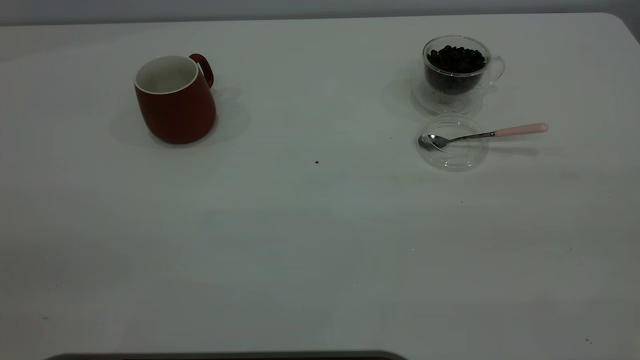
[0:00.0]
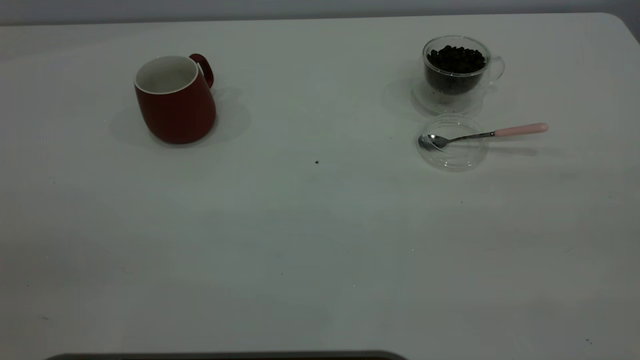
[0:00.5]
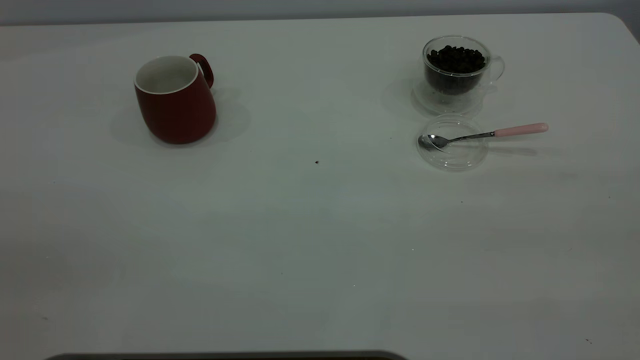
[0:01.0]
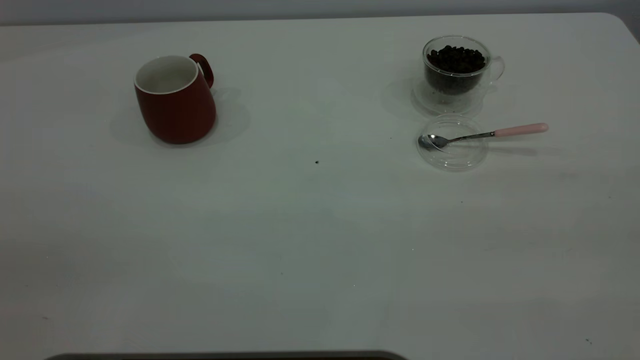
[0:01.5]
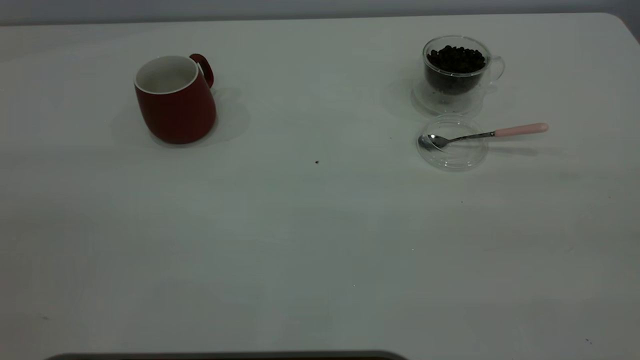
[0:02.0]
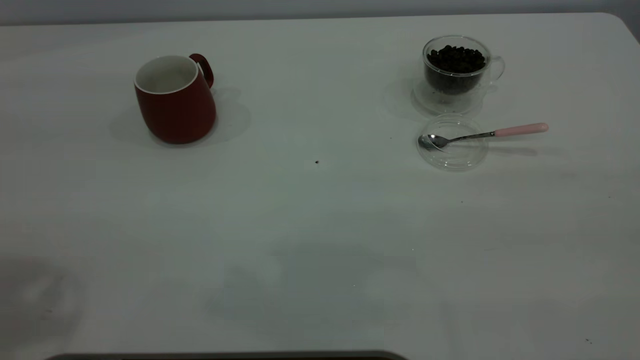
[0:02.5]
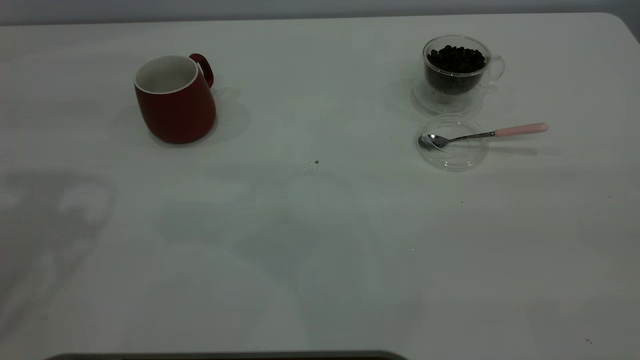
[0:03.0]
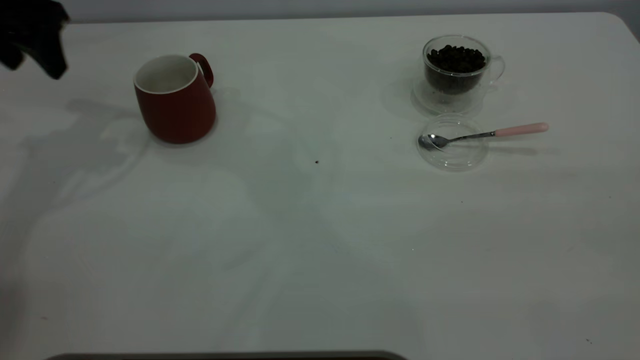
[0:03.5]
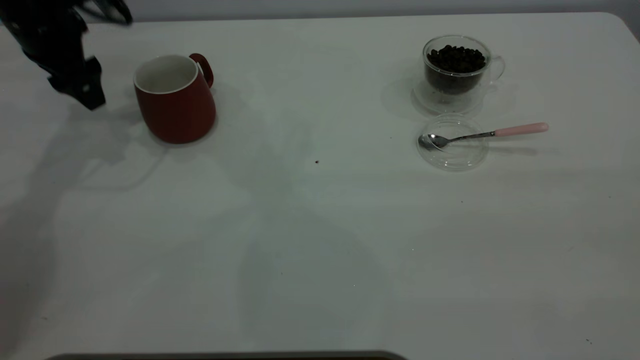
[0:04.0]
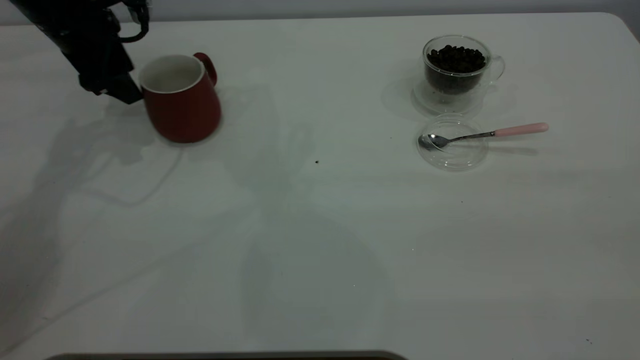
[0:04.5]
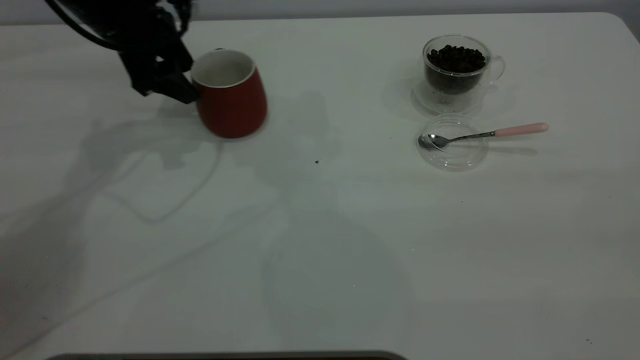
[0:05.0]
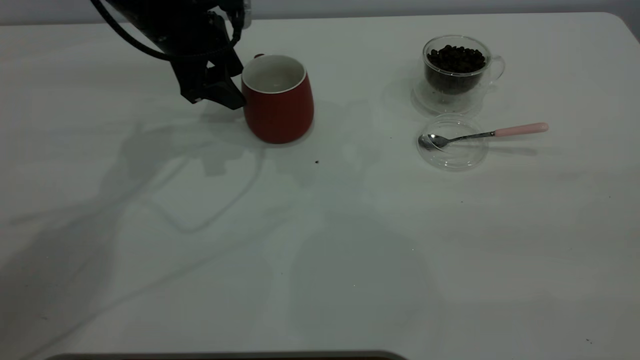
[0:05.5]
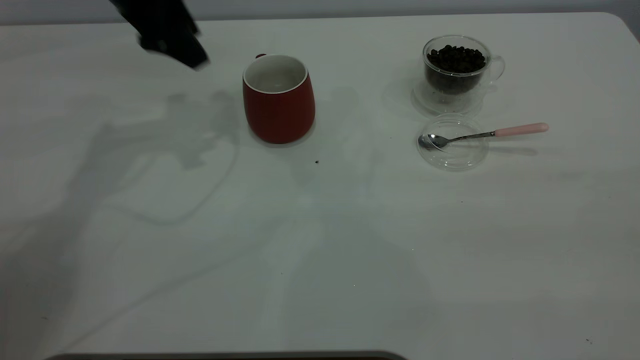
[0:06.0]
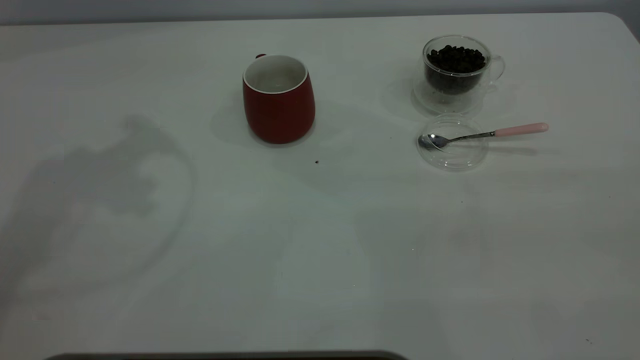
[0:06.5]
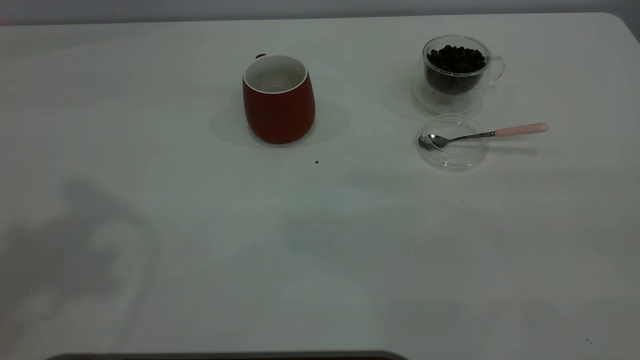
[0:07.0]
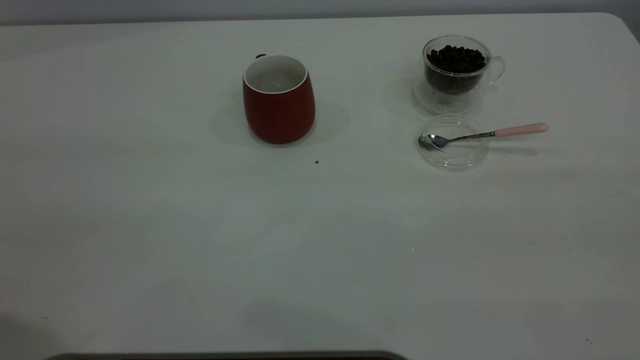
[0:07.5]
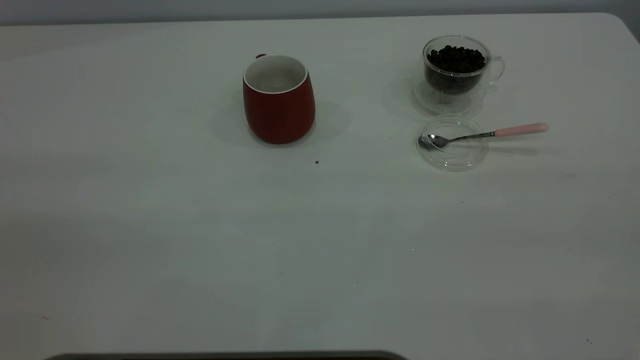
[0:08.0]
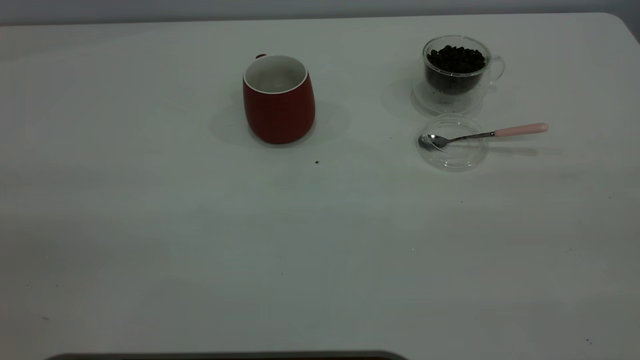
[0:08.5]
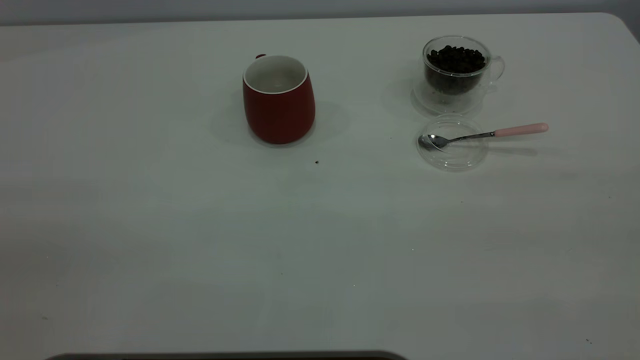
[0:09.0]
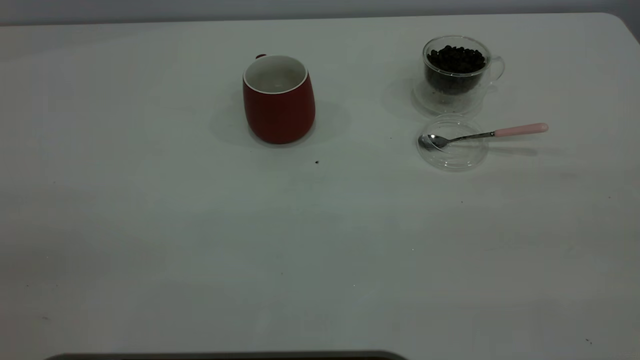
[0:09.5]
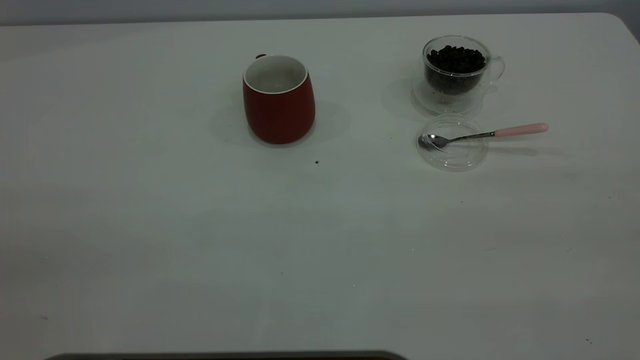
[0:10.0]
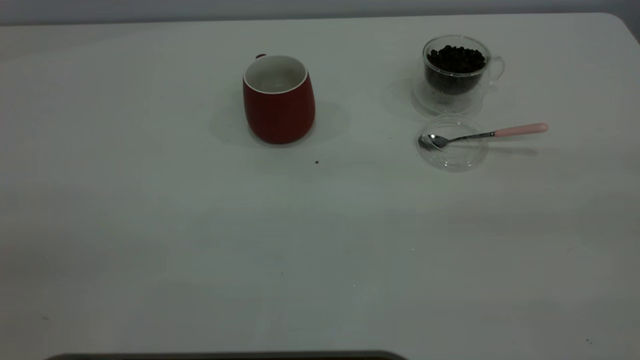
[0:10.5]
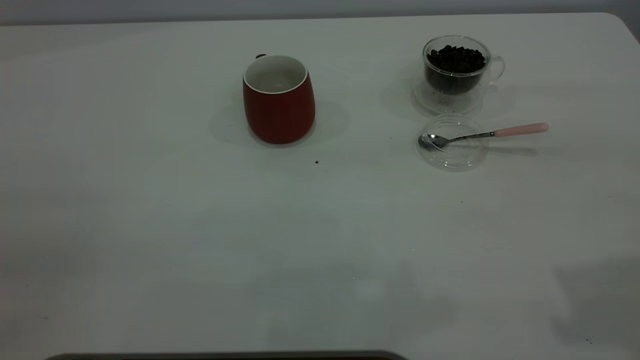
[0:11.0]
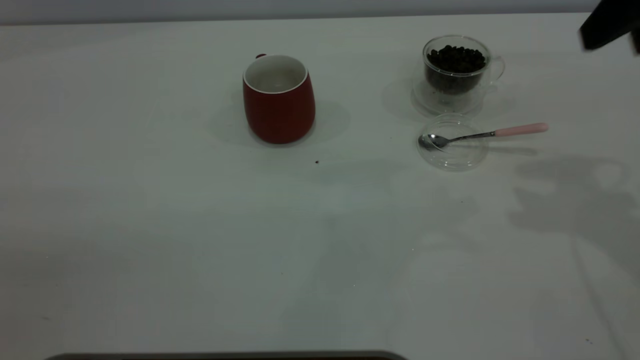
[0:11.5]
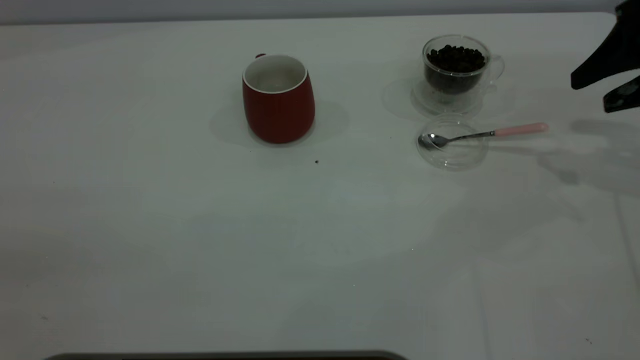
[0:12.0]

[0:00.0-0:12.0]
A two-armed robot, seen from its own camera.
Task of the whole recording: the left gripper place the red cup in the center of the table, the right gripper take the pink spoon from the cup lid and scoop out the coffee beans from the coffee cup and put them into the red cup, the right gripper put the spoon back into the cup lid.
Step, 0:00.0 to 0:05.5: Move the cup to the center of view.
0:02.0 to 0:04.0: The left gripper travels forward and downward by about 50 cm.
0:04.0 to 0:06.0: The left gripper shifts some 10 cm to the right and upward.
0:06.0 to 0:08.0: The left gripper shifts approximately 40 cm backward.
0:10.0 to 0:12.0: The right gripper heads forward and downward, covering about 40 cm, and opens.

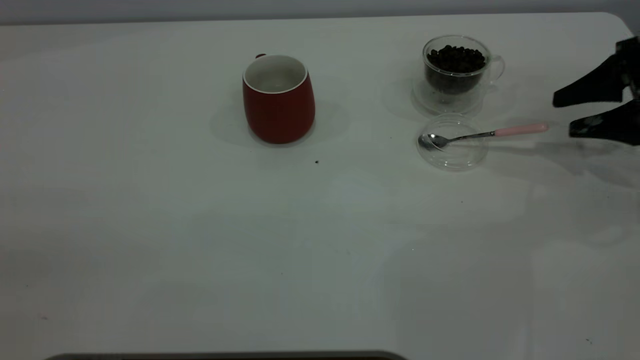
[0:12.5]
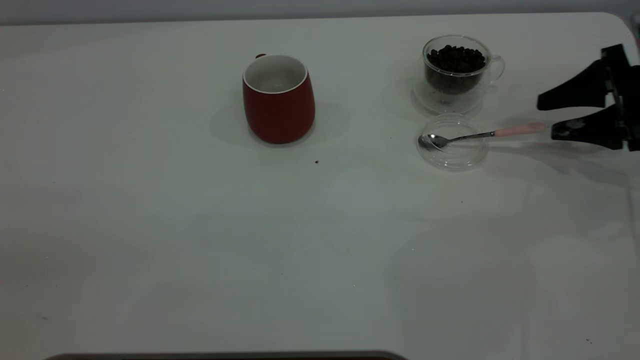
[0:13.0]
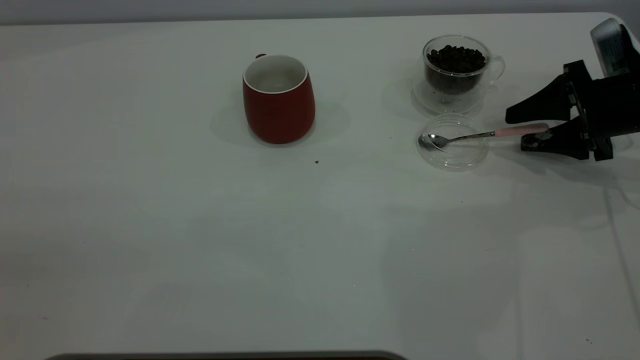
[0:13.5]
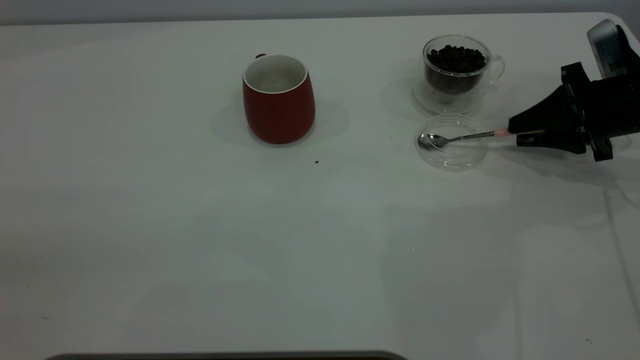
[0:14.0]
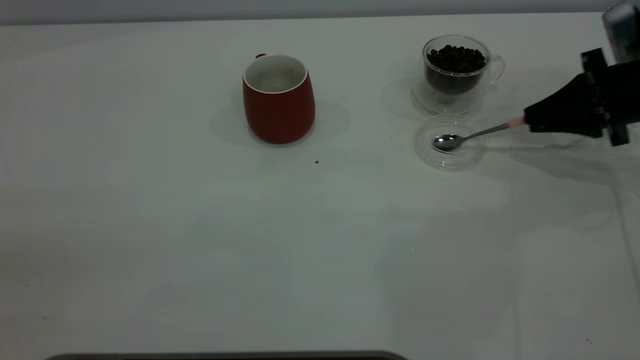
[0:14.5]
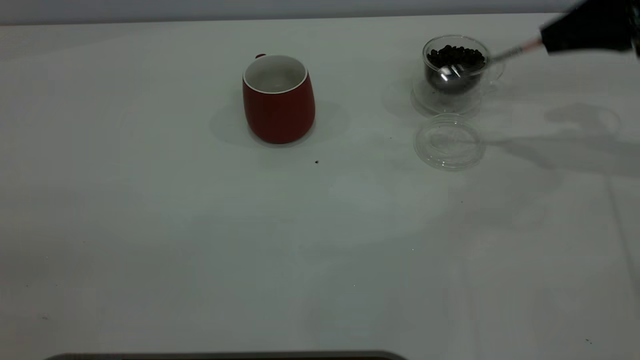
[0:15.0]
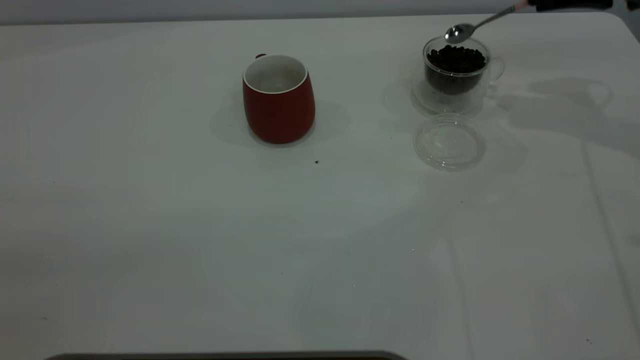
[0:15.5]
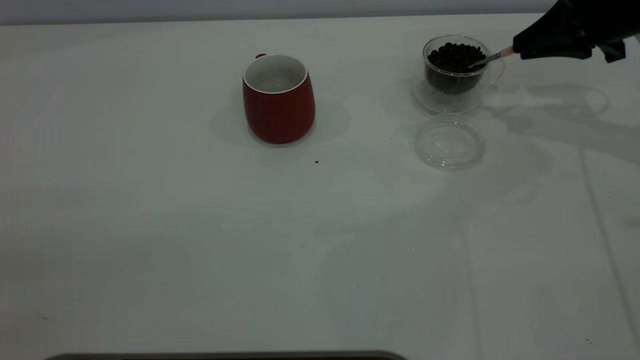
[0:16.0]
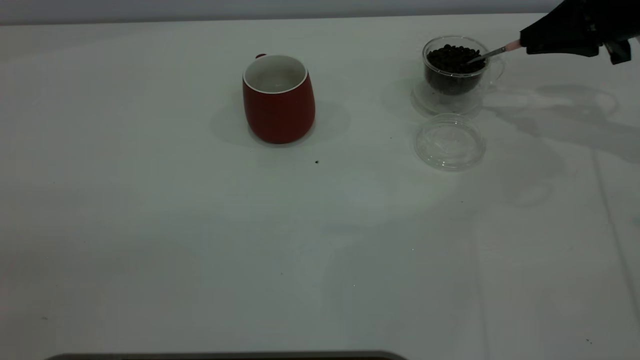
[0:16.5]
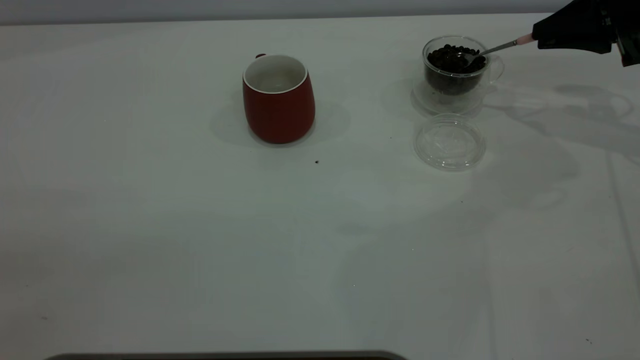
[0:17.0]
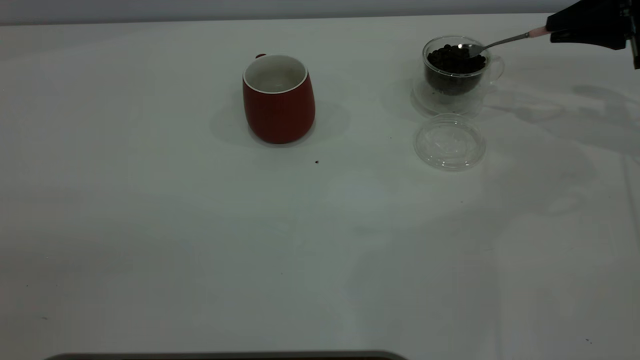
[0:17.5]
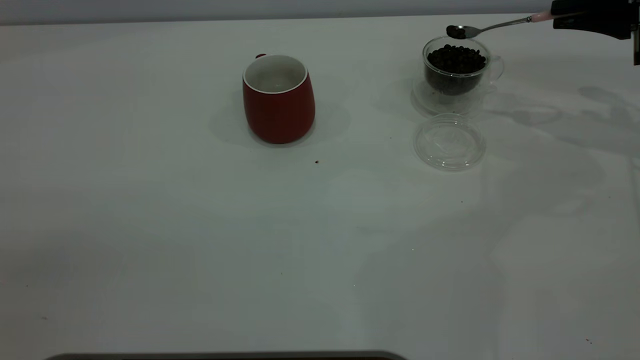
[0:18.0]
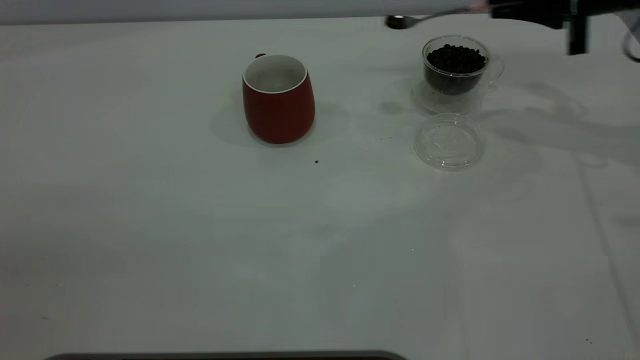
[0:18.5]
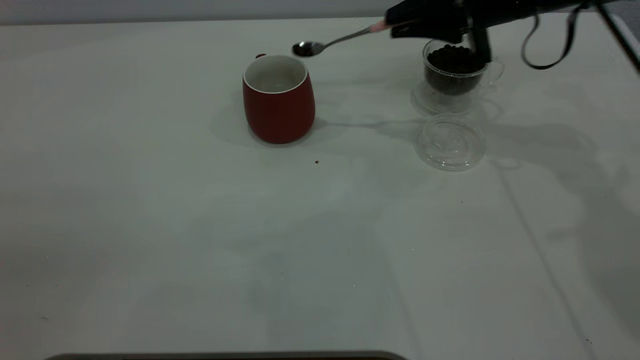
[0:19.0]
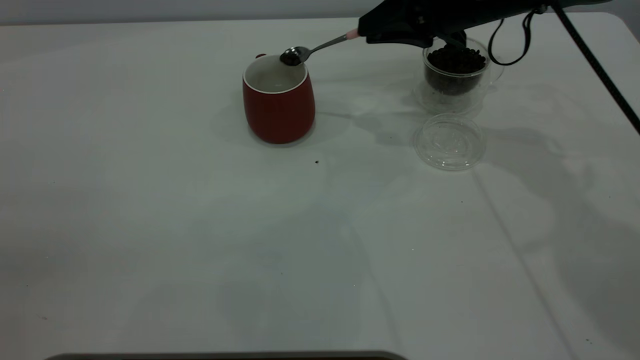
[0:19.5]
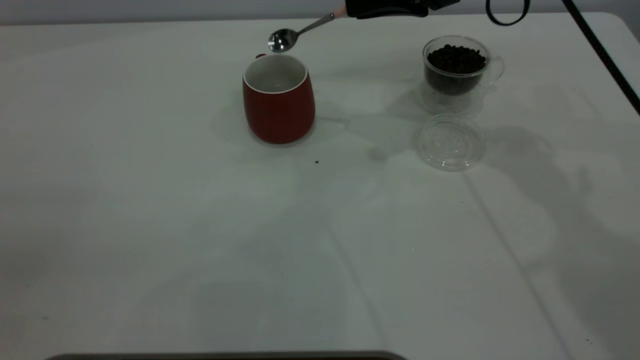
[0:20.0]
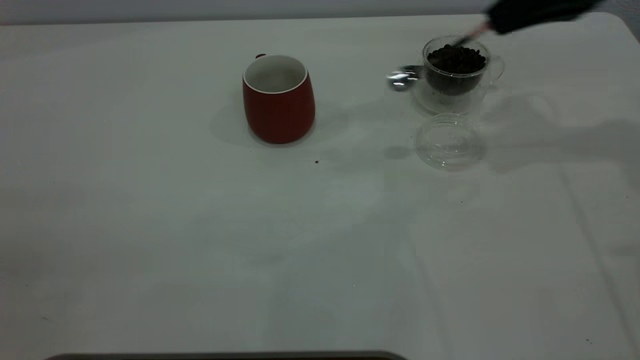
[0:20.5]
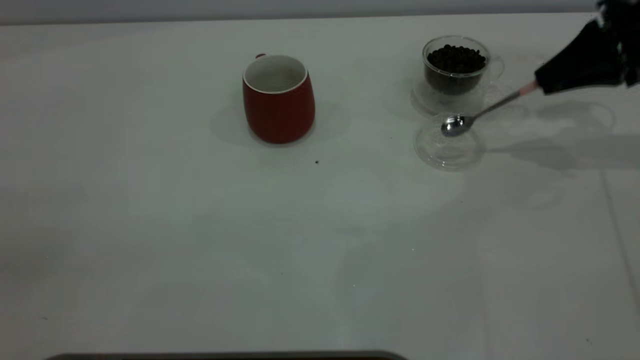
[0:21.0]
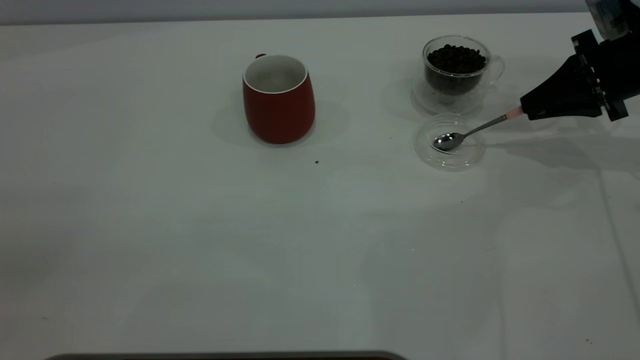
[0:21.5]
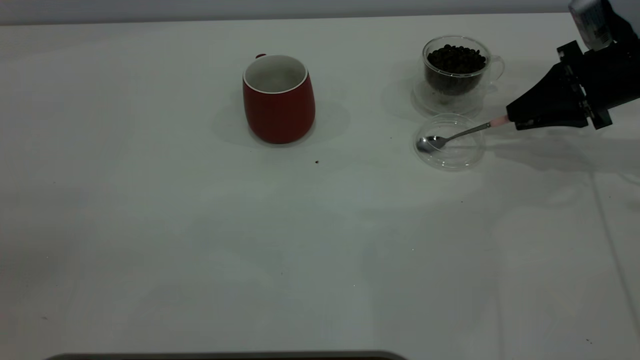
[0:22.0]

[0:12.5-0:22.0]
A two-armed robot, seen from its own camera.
Task of the whole recording: the left gripper place the red cup in the center of the table, the right gripper take the pink spoon from the cup lid and scoop out the coffee beans from the coffee cup and put them into the red cup, the right gripper put the spoon back into the cup lid.
Step, 0:12.5 to 0:14.5: Pick up the spoon.
Step, 0:15.0 to 0:20.0: Scoop a spoonful of beans into the cup.
0:12.5 to 0:14.5: The right gripper closes up.
0:14.5 to 0:16.5: The right gripper heads upward and forward, covering roughly 10 cm.
0:18.0 to 0:20.0: The right gripper heads to the left, covering roughly 20 cm.
0:20.0 to 0:22.0: The right gripper moves to the right and downward, about 20 cm.
